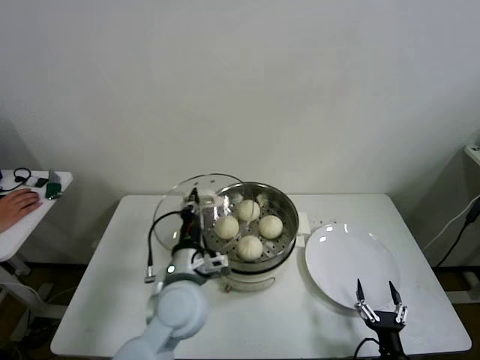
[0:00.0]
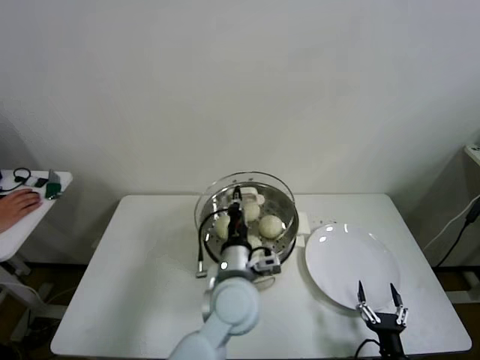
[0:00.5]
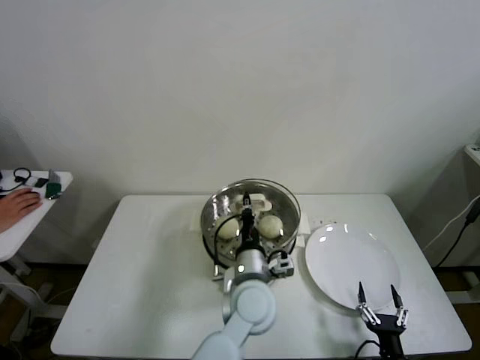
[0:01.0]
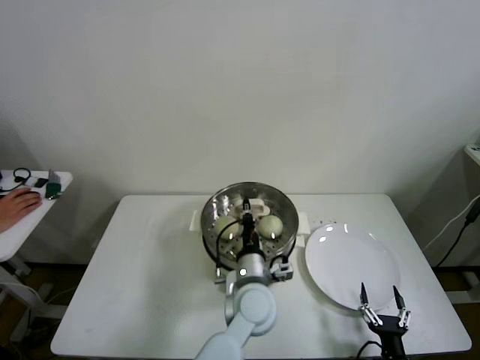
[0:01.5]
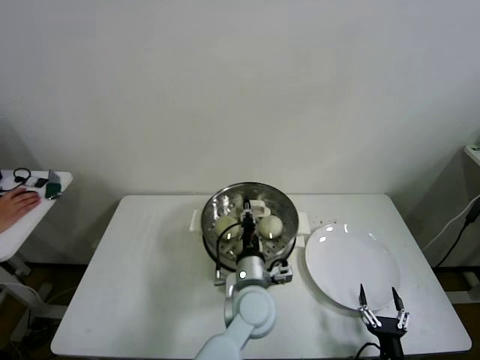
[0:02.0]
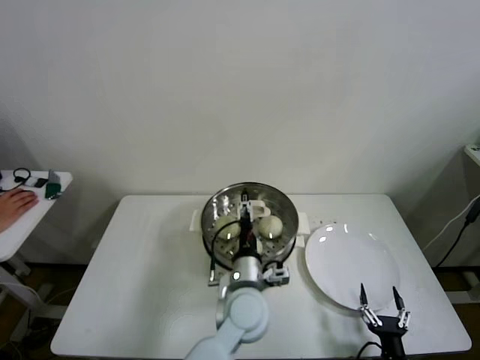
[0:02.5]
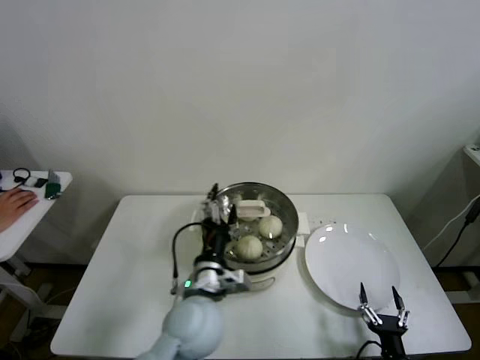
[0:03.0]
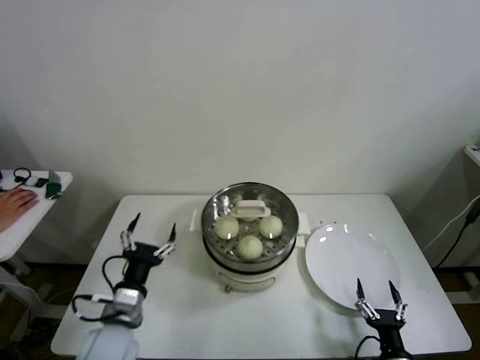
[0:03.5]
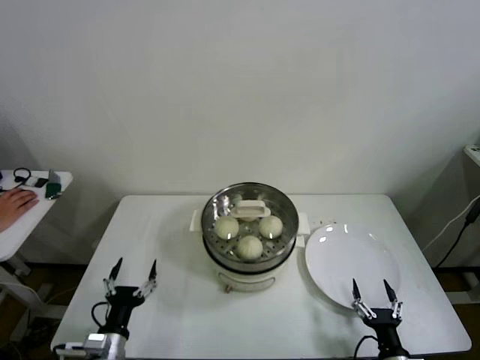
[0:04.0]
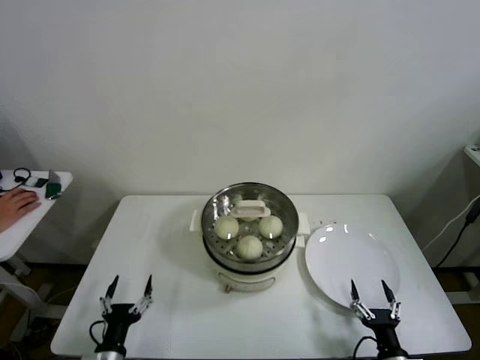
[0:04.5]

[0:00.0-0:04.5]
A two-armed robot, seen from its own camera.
Step, 0:00.0 to 0:02.0: Place the pot lid on the steamer with left gripper.
0:00.0 to 0:02.0: The left gripper travels to the right and downward by about 15 cm.
0:02.0 to 0:04.5: The left gripper moves to the left and backward, approximately 35 cm, and opens its fingers.
